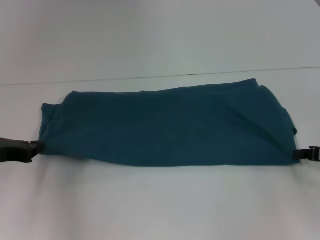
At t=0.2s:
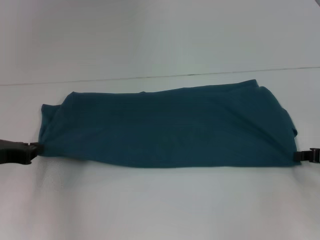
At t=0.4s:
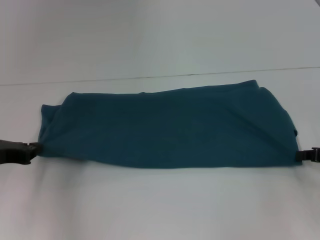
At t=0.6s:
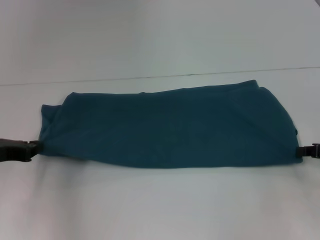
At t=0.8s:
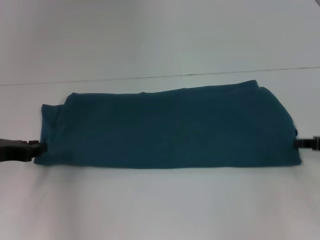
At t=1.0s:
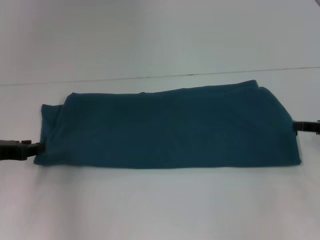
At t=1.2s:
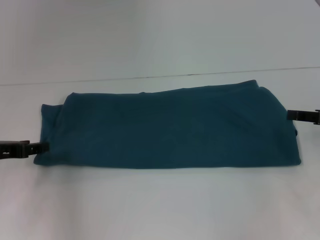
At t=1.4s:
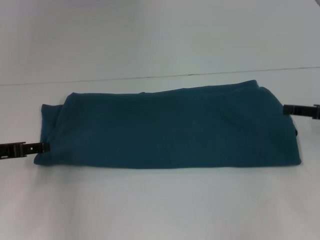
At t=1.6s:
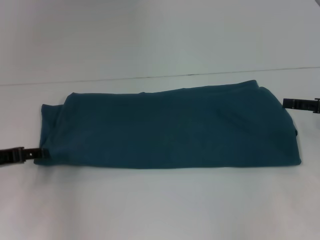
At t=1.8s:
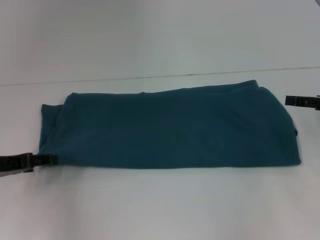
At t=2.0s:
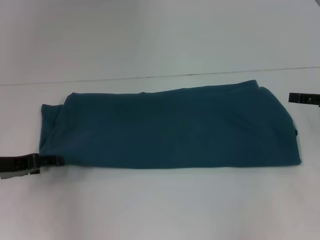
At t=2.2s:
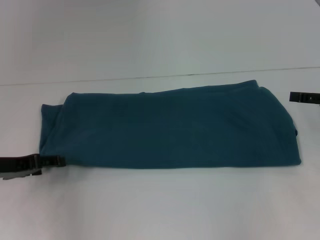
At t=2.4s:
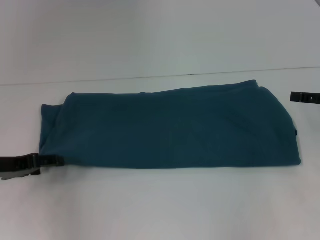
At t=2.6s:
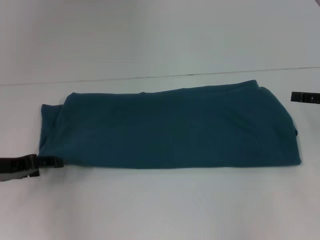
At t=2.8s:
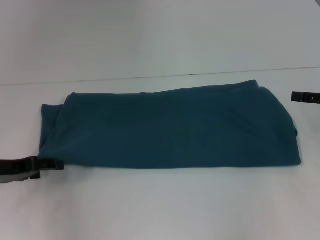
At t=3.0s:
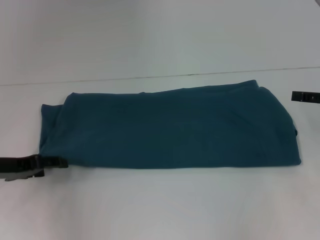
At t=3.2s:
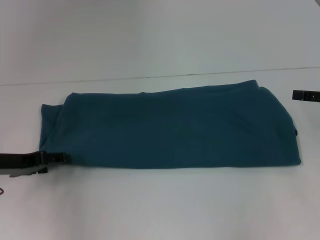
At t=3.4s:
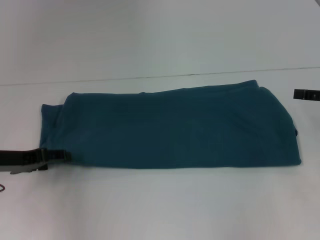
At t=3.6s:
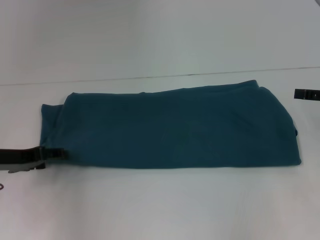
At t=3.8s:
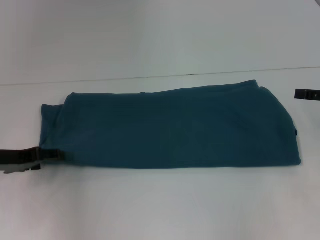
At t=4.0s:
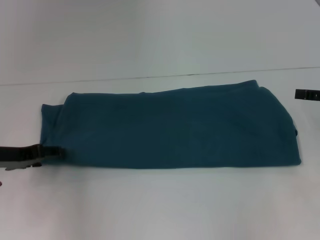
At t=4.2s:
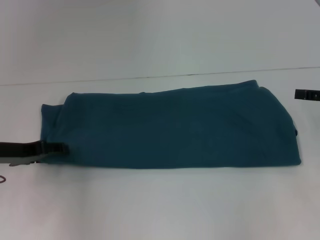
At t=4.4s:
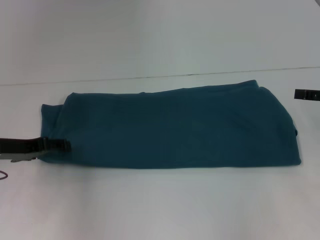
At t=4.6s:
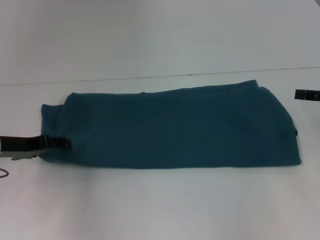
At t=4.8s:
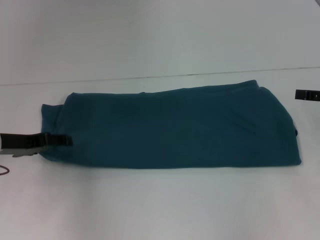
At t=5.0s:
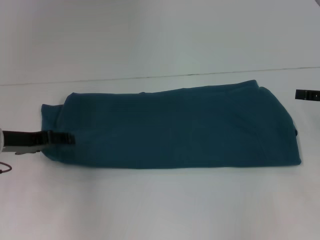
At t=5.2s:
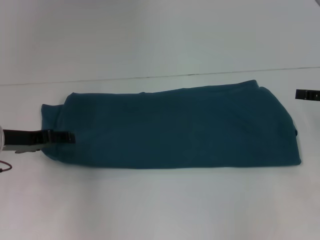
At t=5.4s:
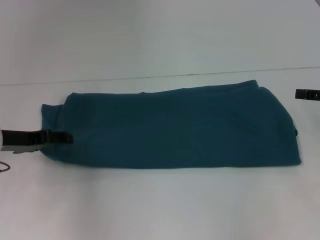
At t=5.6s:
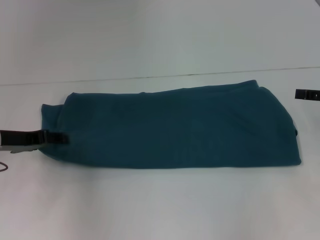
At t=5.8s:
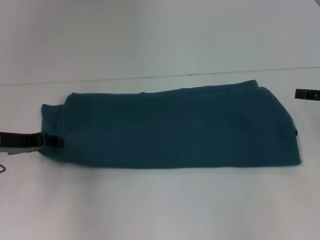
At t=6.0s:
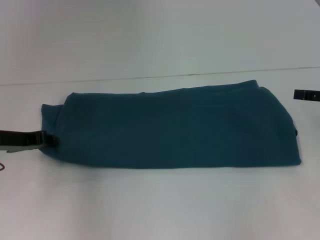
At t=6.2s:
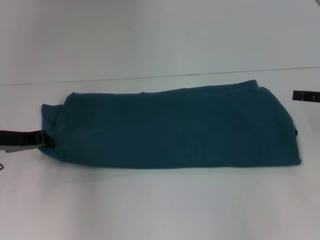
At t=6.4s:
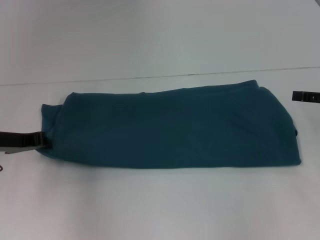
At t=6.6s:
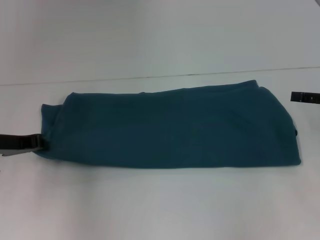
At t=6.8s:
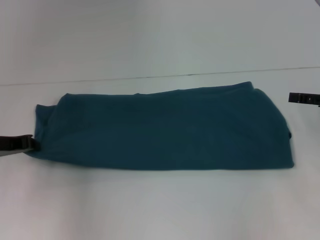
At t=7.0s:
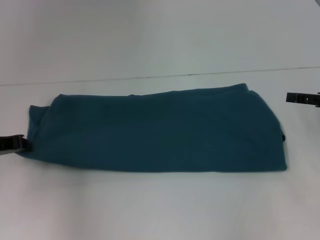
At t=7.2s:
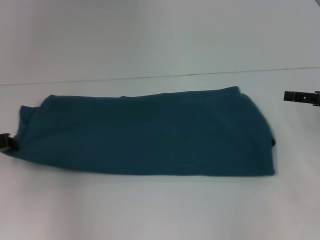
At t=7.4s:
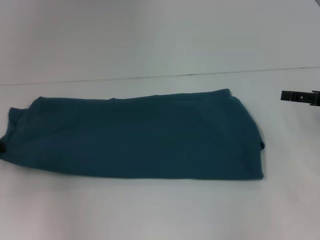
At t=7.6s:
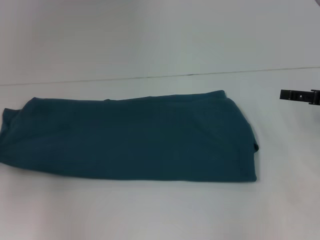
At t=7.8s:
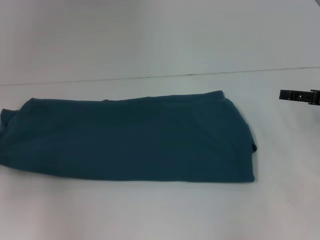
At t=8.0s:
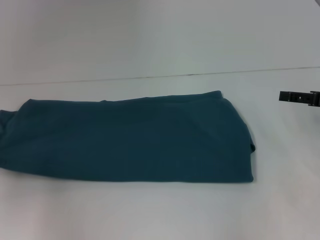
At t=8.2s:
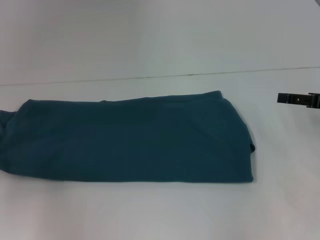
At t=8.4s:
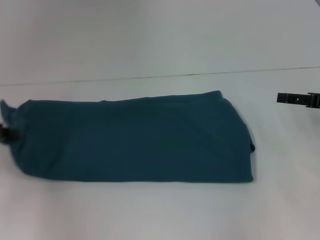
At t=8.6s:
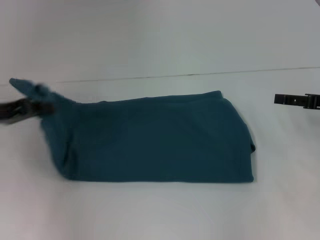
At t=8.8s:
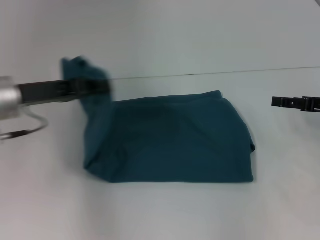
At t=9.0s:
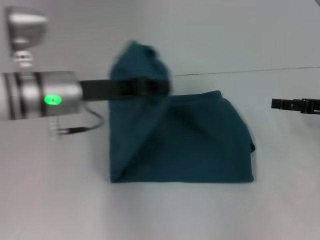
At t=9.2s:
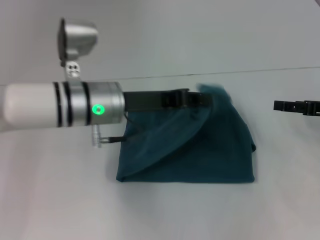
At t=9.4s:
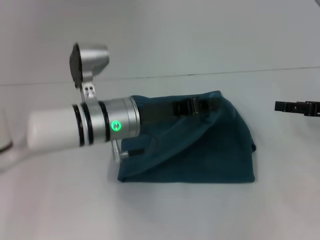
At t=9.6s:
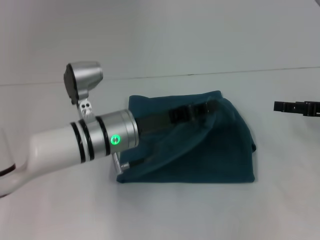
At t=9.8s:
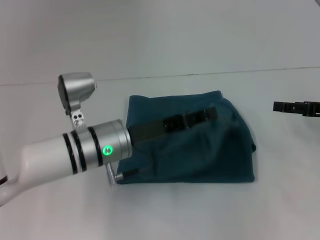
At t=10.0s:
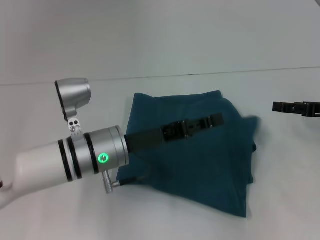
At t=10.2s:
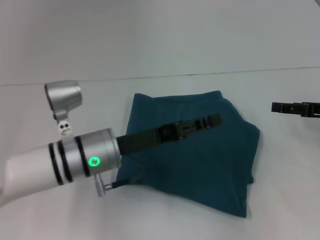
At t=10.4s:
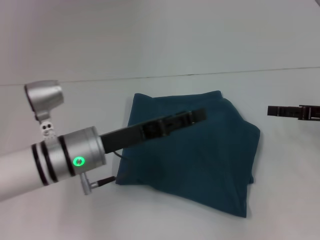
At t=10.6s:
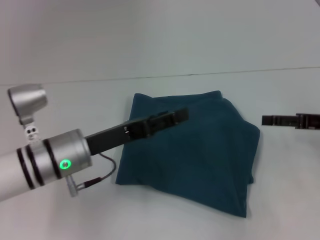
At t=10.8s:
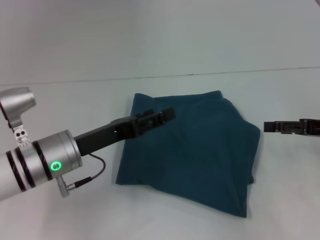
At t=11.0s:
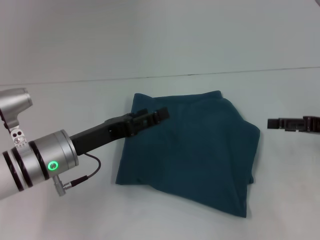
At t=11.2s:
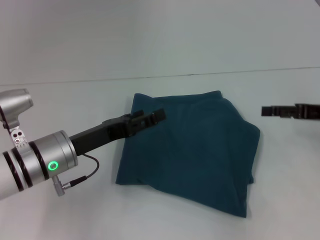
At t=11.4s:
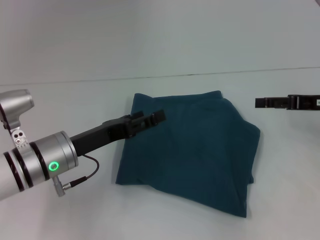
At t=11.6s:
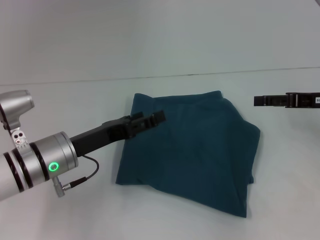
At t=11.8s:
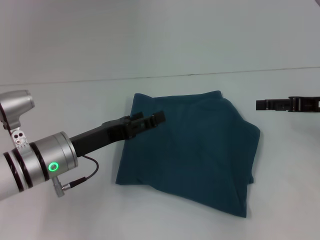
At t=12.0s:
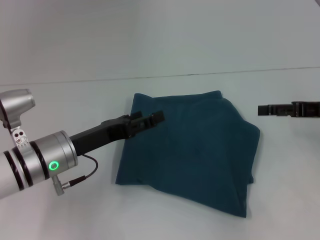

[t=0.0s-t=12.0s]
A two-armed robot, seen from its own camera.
Step, t=0.0s to t=10.2s: Fold the clothes to the left.
t=0.0s to t=1.6s: The left gripper opens its fingers, while the right gripper is displaced upward by approximately 5 cm, and opens up.
t=1.6s to t=6.0s: The grippers stay close to where they were, moving slightly.
t=6.0s to t=7.6s: The left gripper travels to the left by about 10 cm, and closes up.
t=7.6s to t=9.0s: The left gripper moves to the right, approximately 20 cm.
t=9.0s to t=10.4s: The left gripper is displaced downward by about 10 cm, and opens its fingers.
t=10.4s to t=12.0s: The left gripper opens.

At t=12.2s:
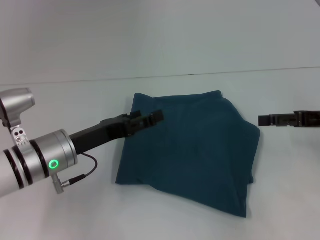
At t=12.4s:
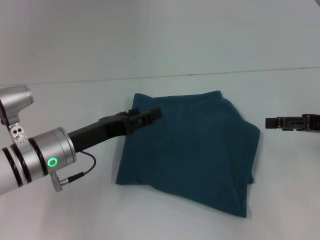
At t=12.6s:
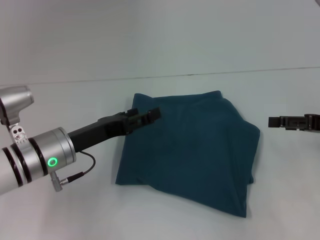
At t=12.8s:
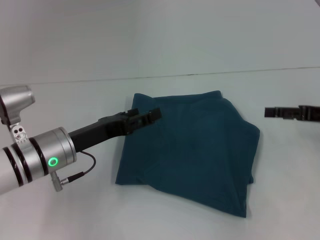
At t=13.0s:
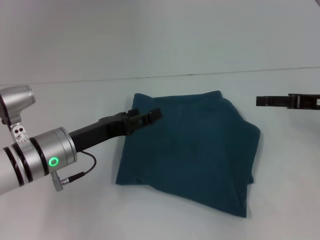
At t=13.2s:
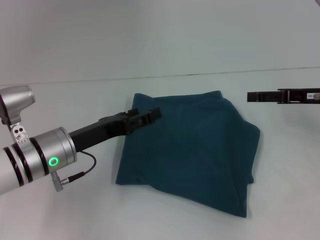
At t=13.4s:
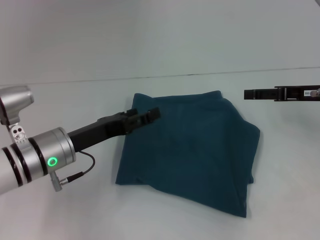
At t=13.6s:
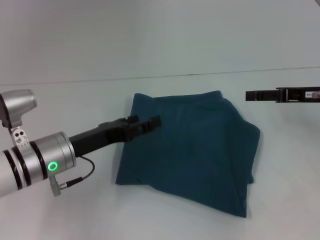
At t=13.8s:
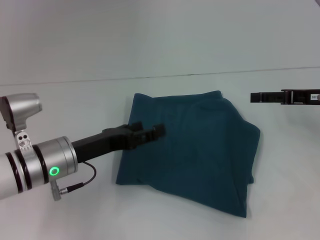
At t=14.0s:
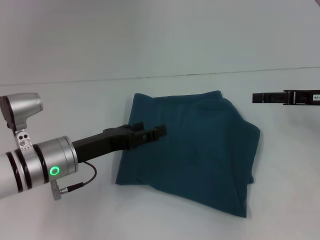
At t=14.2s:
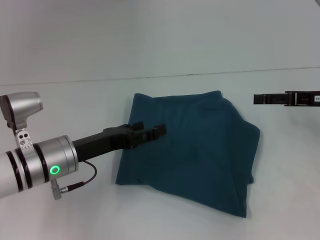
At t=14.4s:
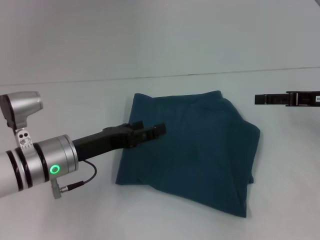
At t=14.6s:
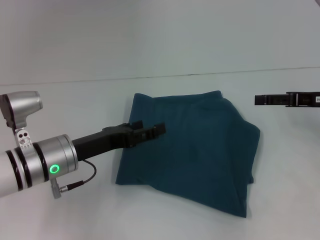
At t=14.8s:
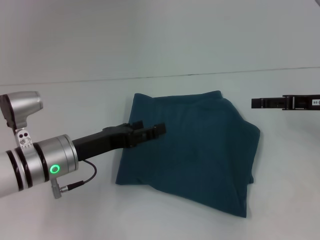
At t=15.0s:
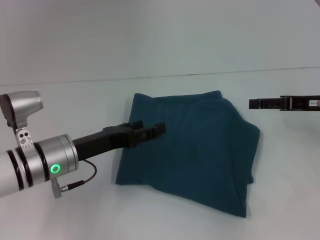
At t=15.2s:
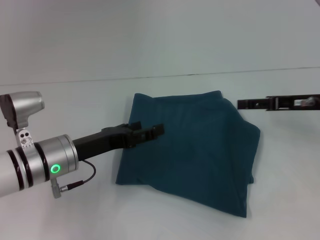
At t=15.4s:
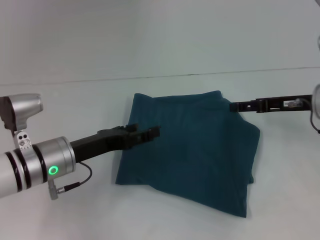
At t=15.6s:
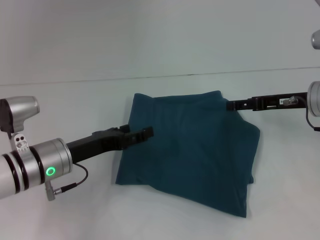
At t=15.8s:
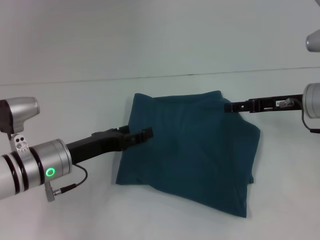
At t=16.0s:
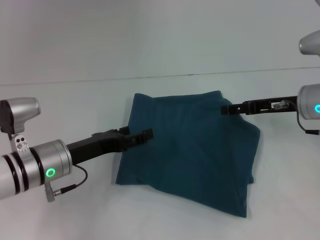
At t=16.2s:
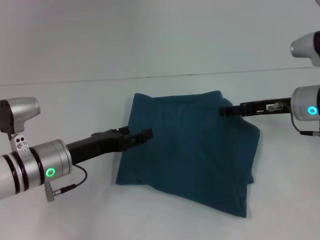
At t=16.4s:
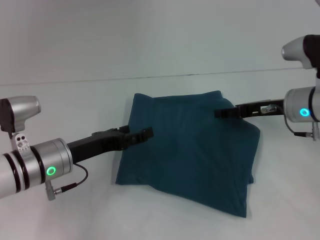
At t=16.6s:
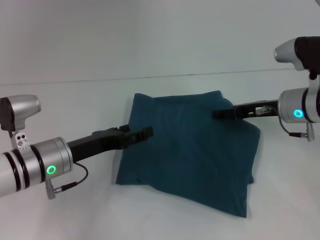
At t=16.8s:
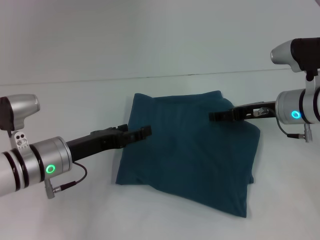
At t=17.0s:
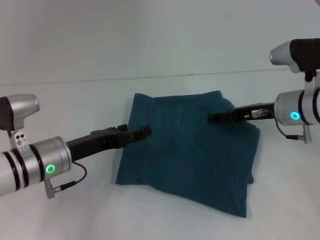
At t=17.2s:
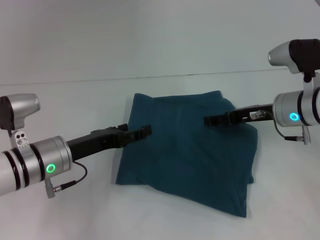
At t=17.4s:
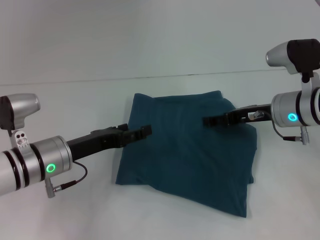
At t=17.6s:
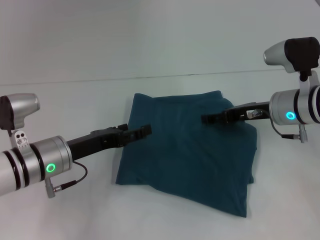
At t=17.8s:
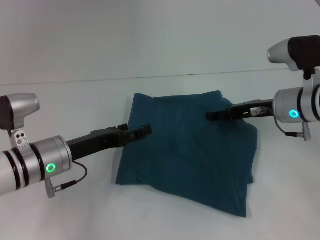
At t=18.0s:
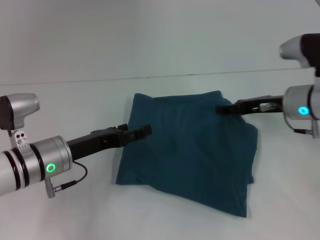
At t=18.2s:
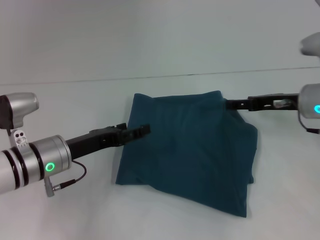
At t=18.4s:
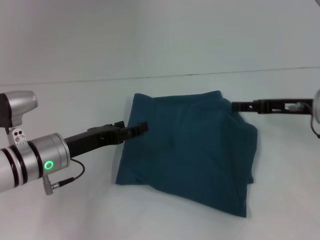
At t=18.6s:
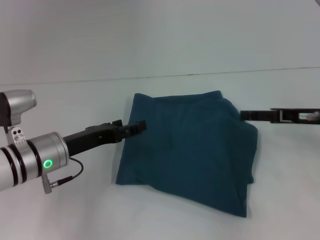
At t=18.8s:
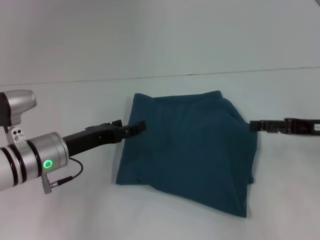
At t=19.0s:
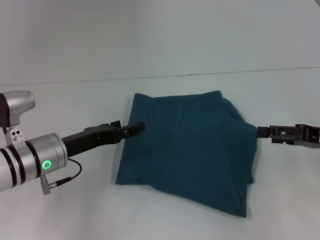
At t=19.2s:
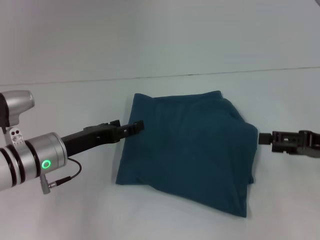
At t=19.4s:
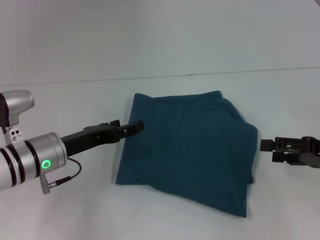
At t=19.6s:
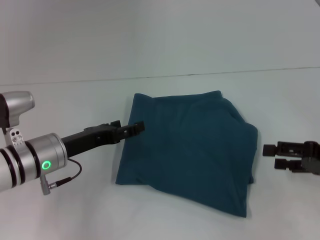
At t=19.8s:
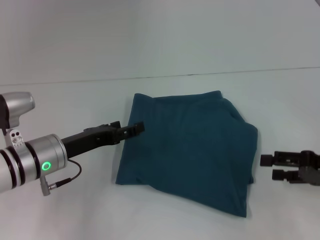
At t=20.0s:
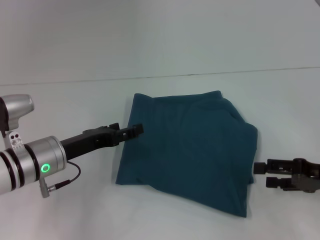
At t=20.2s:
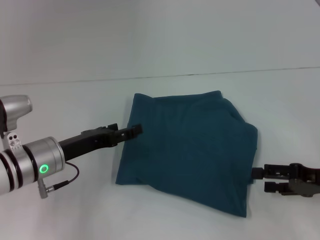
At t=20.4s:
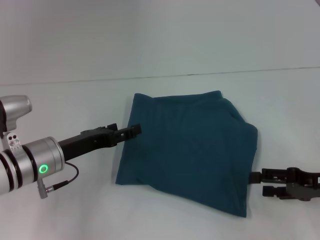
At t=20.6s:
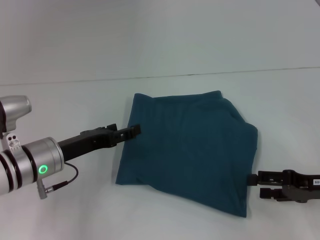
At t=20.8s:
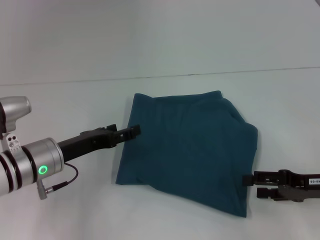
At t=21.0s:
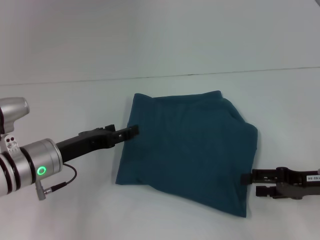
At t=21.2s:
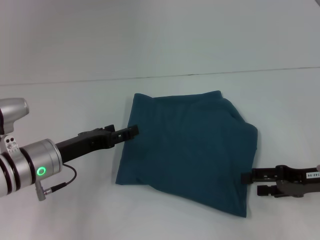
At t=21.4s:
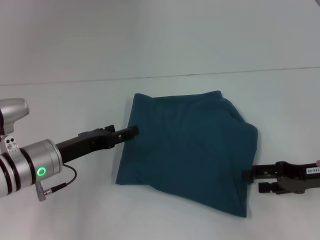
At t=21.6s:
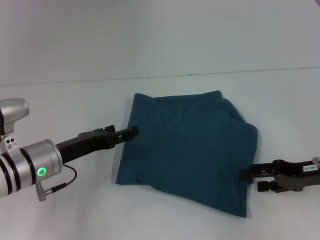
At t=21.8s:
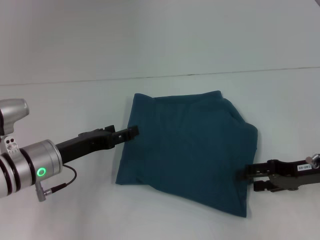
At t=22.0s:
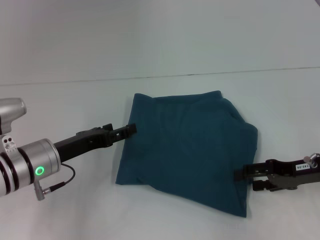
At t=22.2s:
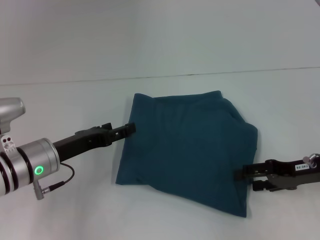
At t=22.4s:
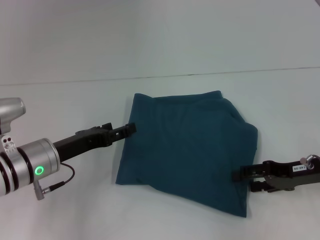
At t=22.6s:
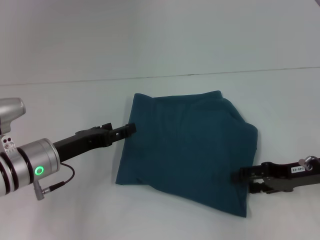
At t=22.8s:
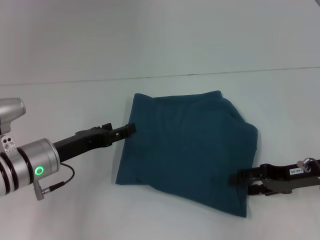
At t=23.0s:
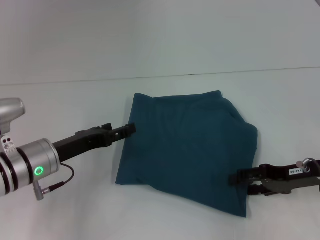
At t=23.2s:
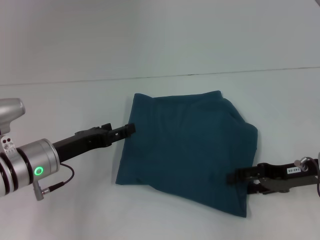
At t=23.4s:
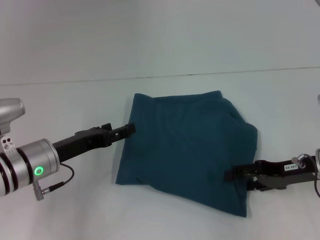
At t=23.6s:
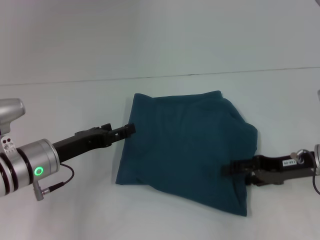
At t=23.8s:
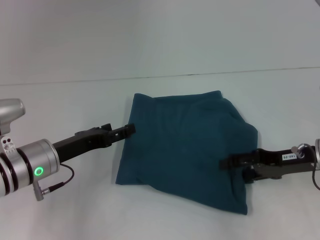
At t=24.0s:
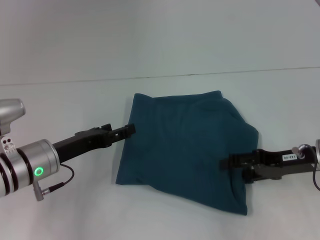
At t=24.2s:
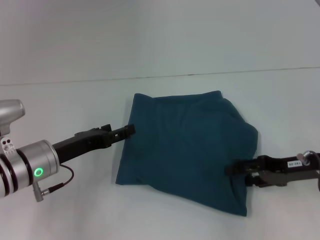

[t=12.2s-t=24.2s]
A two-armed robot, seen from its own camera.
t=12.2s to t=15.2s: There are only small adjustments of the grippers.
t=15.2s to t=16.6s: The right gripper goes some 5 cm to the left.
t=16.6s to t=18.2s: There are only small adjustments of the grippers.
t=18.2s to t=19.8s: The right gripper shifts some 15 cm backward and to the right.
t=19.8s to t=22.6s: The grippers stay close to where they were, moving slightly.
t=22.6s to t=24.2s: The grippers move only a little.
